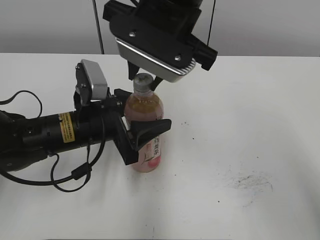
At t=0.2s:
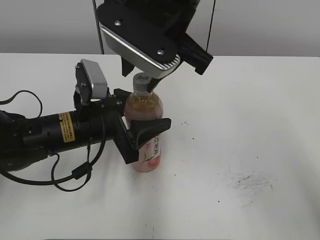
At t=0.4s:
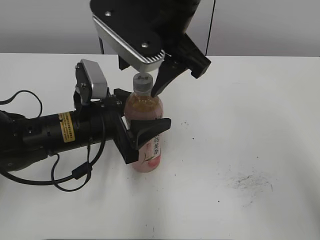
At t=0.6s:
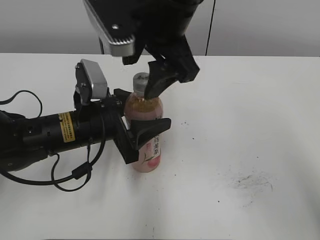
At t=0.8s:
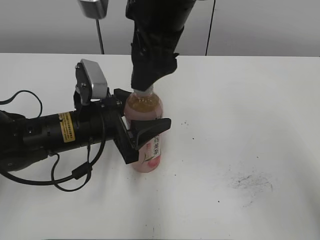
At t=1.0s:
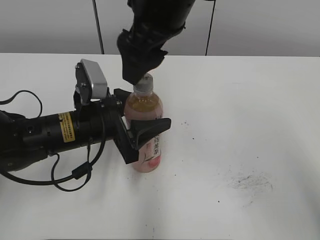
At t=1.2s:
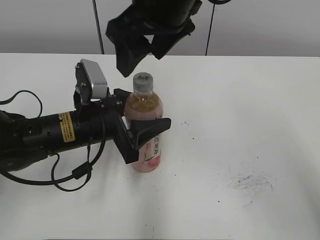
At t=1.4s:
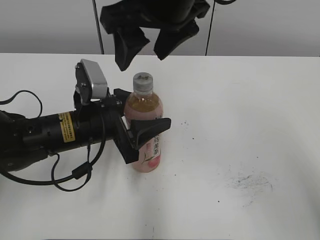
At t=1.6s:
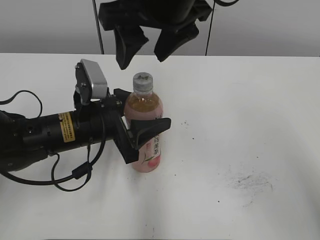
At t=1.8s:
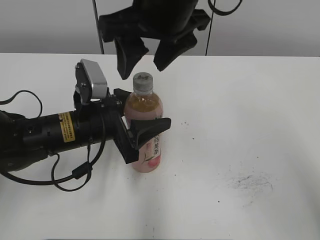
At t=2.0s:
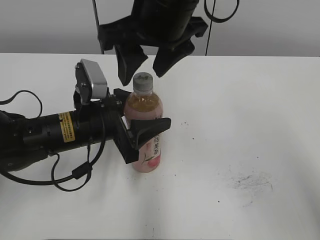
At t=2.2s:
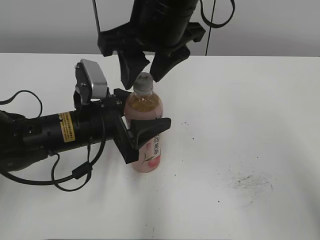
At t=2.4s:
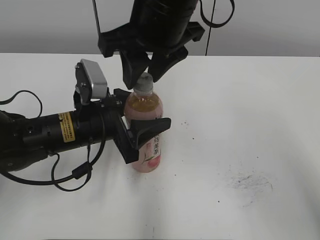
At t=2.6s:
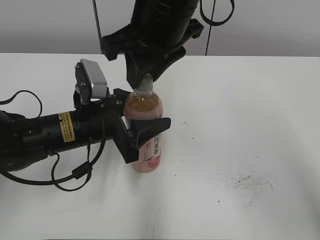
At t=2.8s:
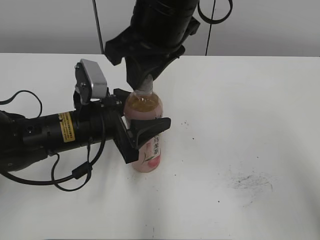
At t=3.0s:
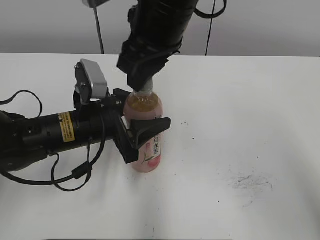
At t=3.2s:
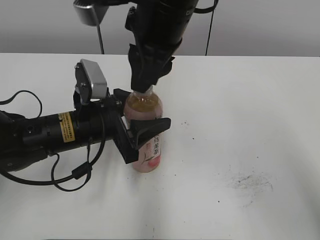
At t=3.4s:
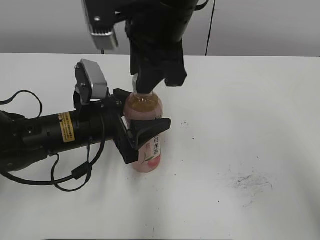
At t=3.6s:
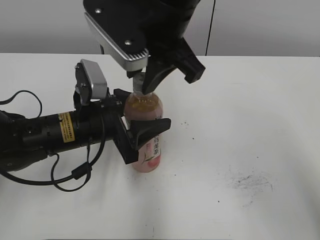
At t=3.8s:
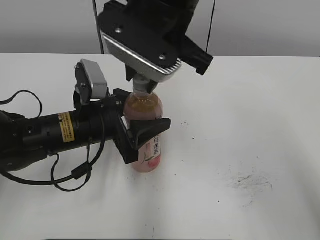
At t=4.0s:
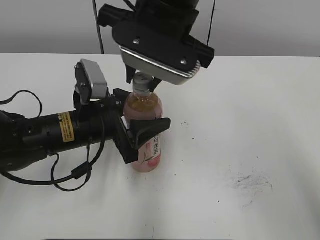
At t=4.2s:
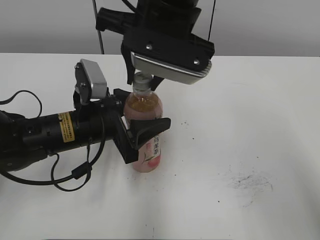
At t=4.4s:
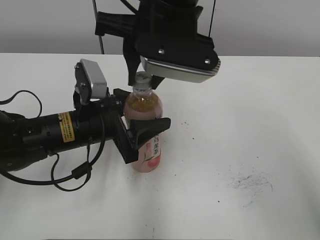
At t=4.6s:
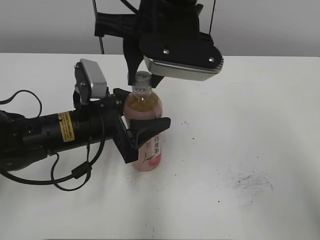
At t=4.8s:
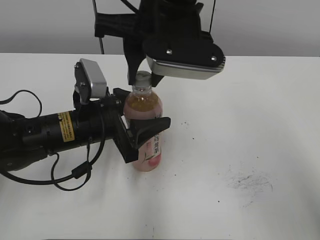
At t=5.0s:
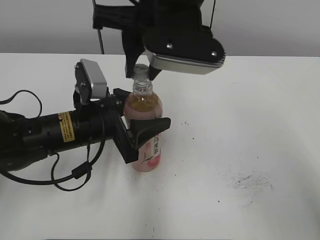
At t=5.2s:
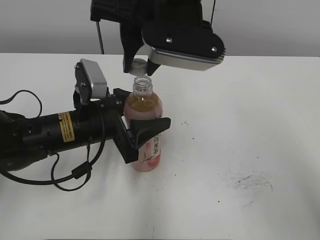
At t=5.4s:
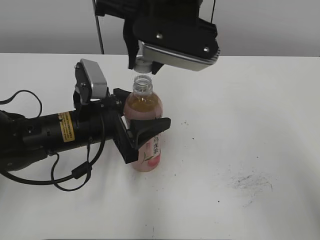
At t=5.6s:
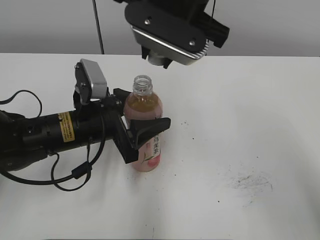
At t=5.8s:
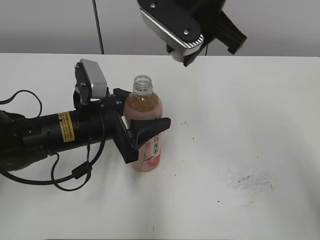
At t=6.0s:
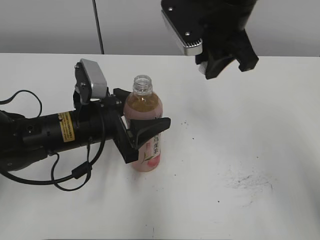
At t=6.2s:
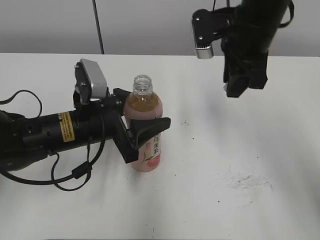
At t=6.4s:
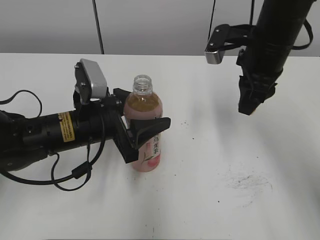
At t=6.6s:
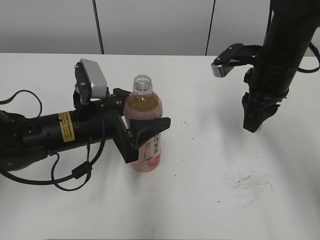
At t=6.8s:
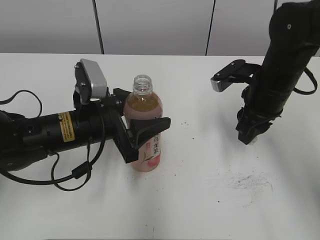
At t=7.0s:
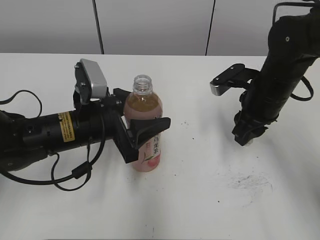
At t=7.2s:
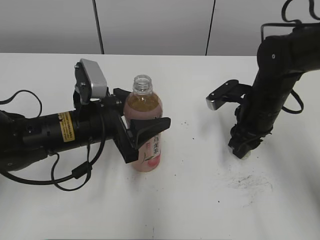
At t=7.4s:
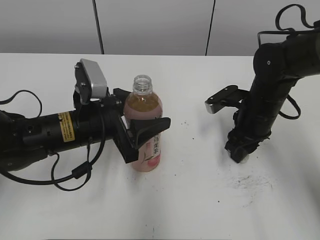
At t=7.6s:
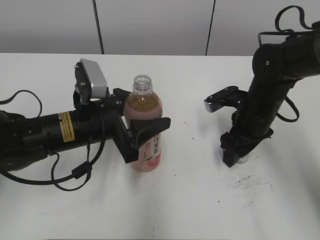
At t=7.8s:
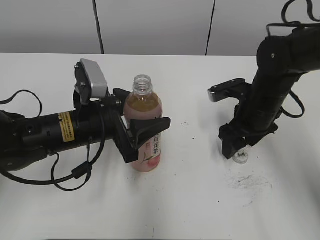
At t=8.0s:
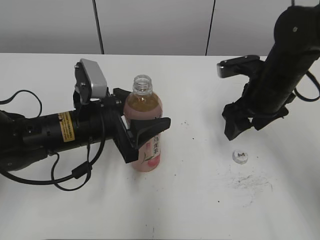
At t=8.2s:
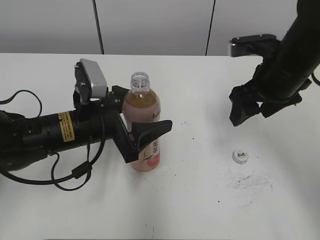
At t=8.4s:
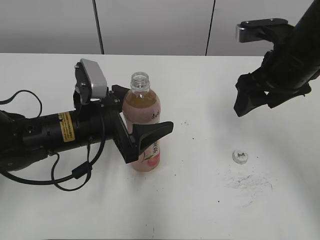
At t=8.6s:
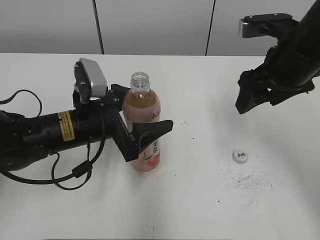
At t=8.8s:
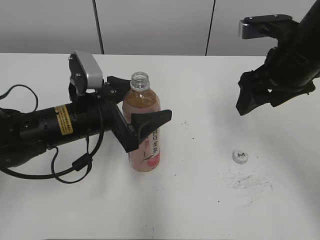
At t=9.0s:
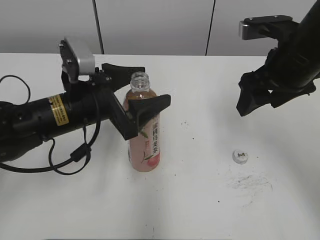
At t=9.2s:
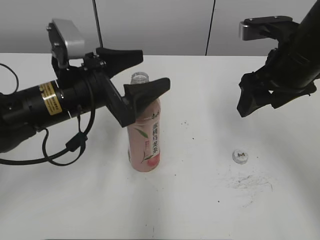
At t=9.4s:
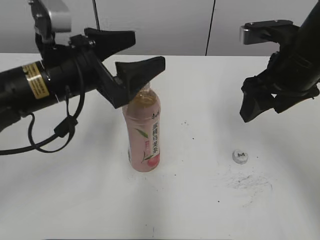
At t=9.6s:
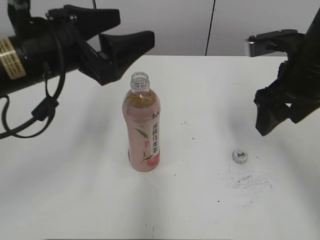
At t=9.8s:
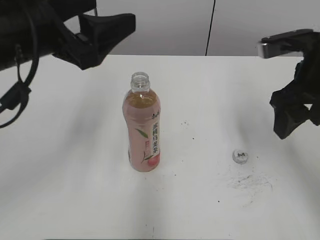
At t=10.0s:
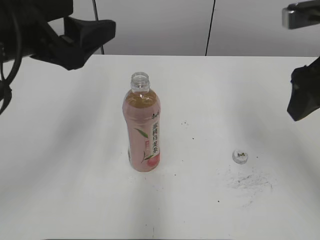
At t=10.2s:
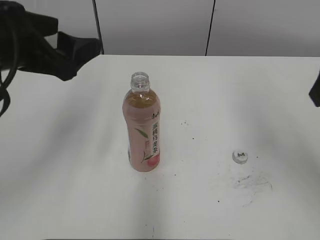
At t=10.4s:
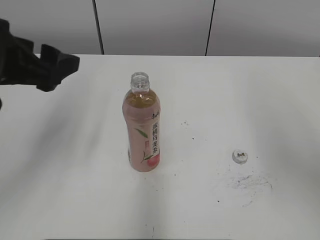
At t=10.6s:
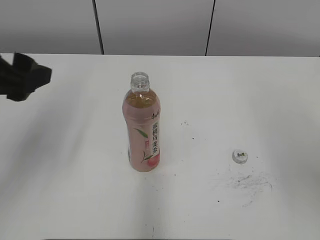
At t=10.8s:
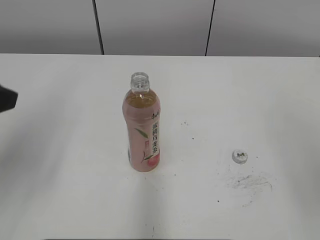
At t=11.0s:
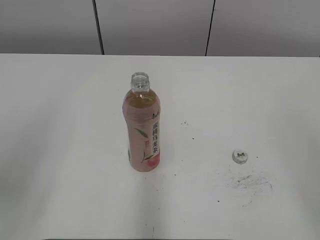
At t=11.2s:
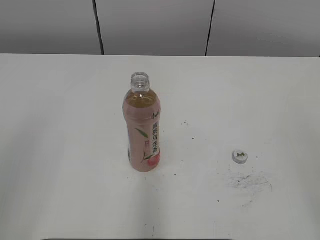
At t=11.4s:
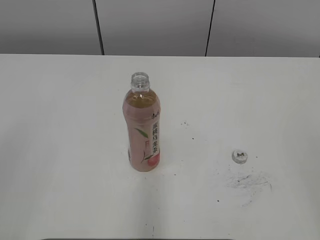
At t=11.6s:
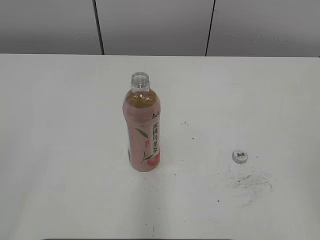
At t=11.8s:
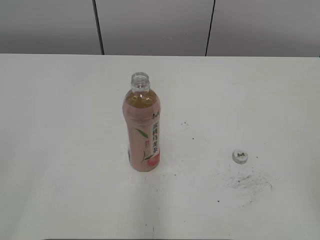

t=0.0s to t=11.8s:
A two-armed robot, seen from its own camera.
Step, t=5.2s to t=7.4s: Place the bottle cap on the right.
t=0.0s to t=1.4s: The right gripper opens.
t=1.4s to t=3.0s: The right gripper closes up.
t=4.4s to t=6.0s: The right gripper goes about 10 cm to the right.
t=6.0s to t=7.4s: The right gripper travels downward and to the right by roughly 20 cm.
t=7.4s to t=8.8s: The left gripper opens, while the right gripper is displaced upward by some 15 cm, and opens.
t=8.8s to t=10.4s: The left gripper heads upward and to the left, covering approximately 15 cm. Meanwhile the right gripper shifts roughly 15 cm backward, upward and to the right.
t=10.4s to t=11.8s: The left gripper is displaced backward and to the left by about 25 cm.

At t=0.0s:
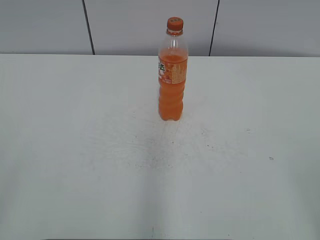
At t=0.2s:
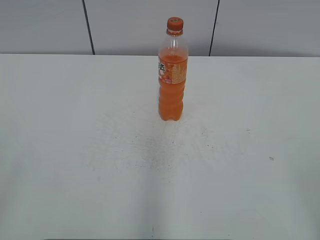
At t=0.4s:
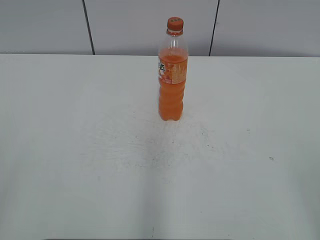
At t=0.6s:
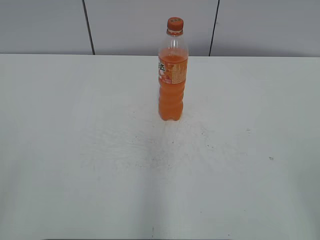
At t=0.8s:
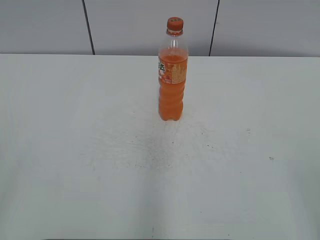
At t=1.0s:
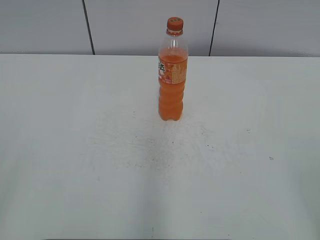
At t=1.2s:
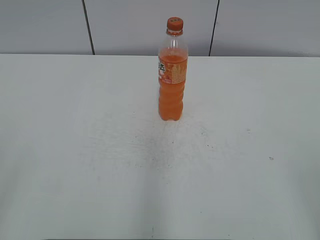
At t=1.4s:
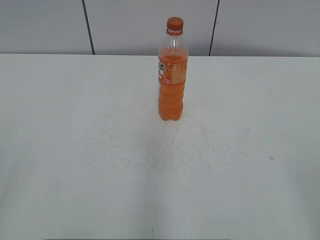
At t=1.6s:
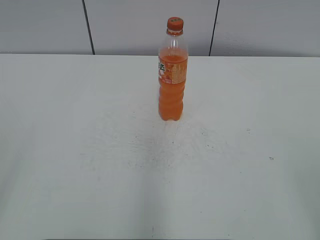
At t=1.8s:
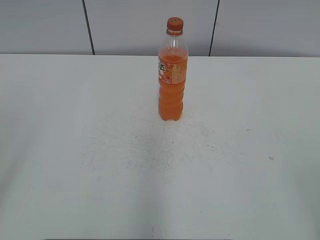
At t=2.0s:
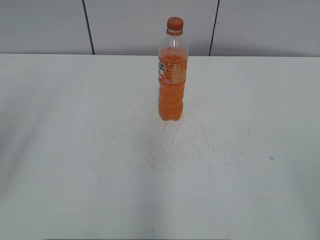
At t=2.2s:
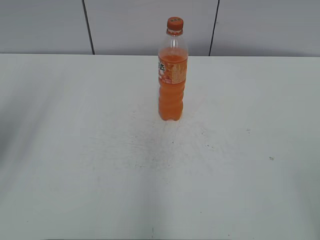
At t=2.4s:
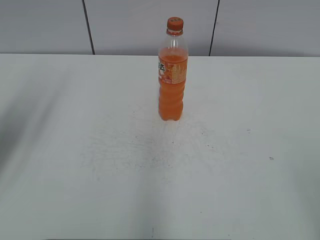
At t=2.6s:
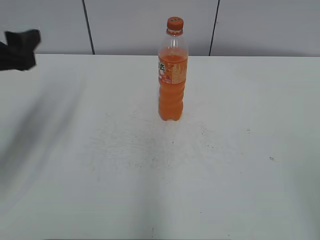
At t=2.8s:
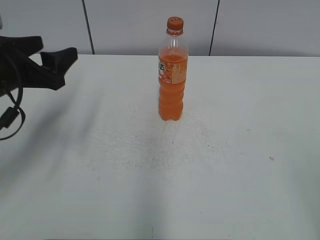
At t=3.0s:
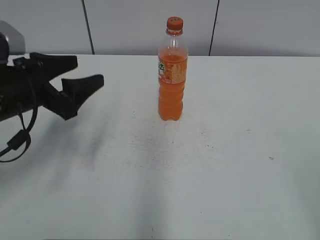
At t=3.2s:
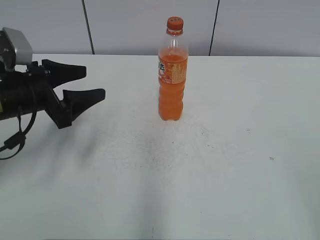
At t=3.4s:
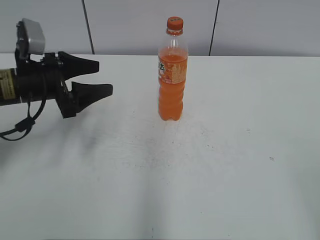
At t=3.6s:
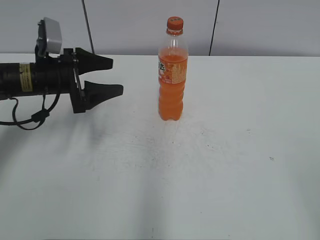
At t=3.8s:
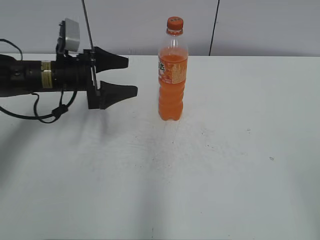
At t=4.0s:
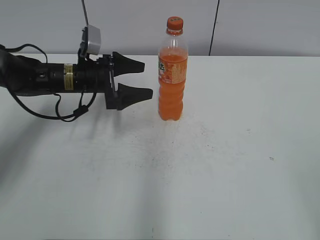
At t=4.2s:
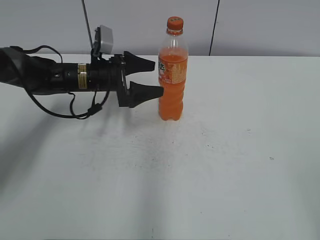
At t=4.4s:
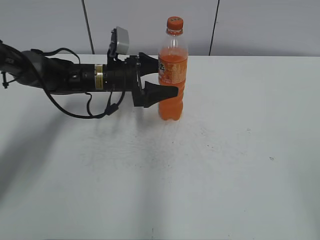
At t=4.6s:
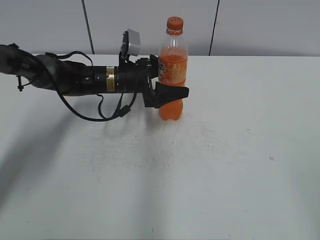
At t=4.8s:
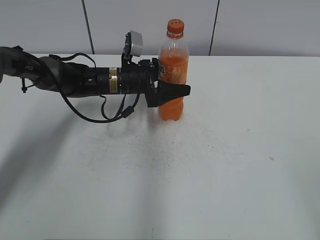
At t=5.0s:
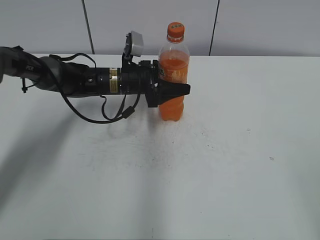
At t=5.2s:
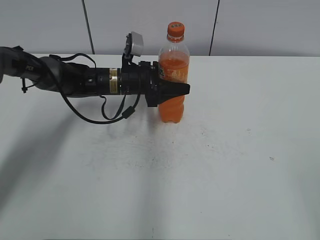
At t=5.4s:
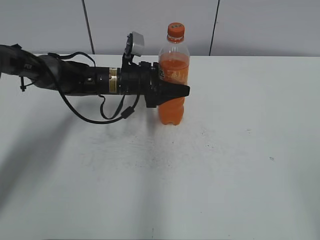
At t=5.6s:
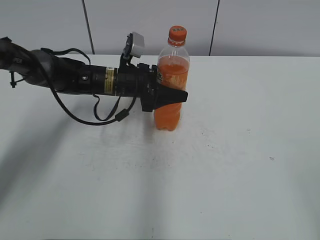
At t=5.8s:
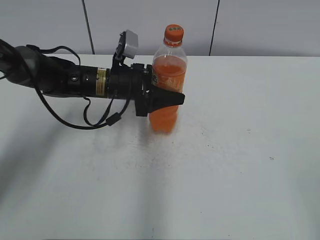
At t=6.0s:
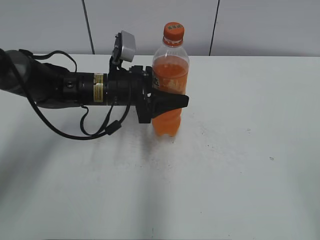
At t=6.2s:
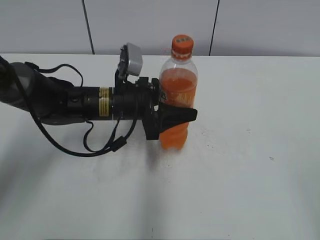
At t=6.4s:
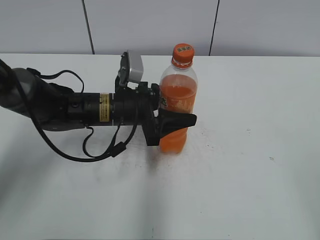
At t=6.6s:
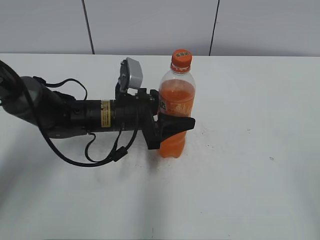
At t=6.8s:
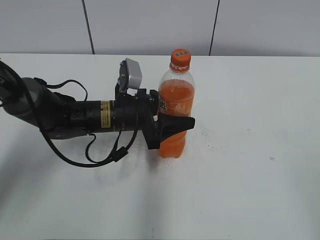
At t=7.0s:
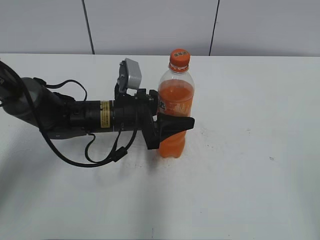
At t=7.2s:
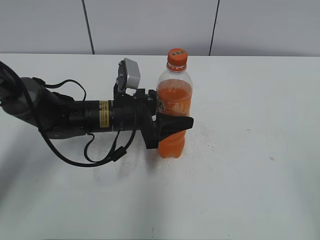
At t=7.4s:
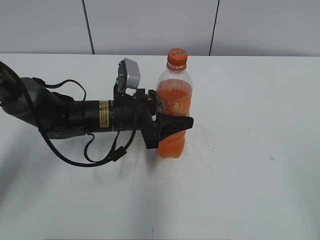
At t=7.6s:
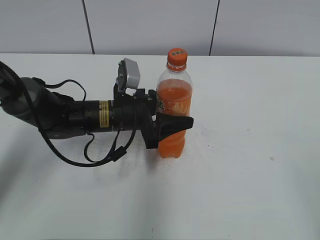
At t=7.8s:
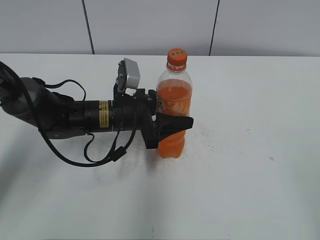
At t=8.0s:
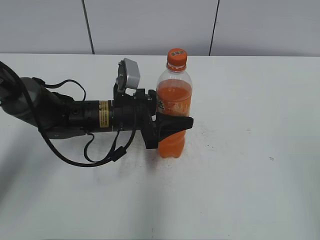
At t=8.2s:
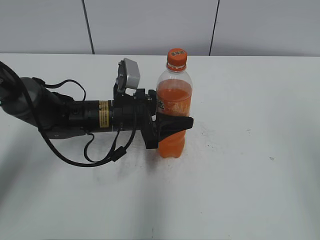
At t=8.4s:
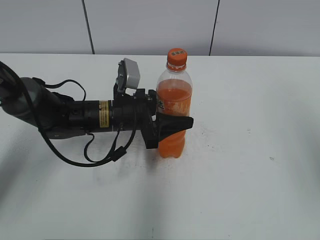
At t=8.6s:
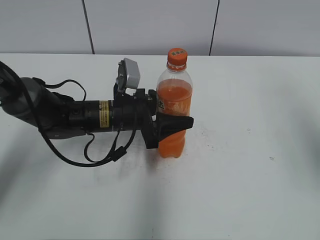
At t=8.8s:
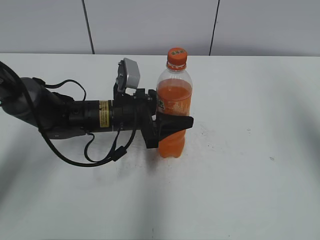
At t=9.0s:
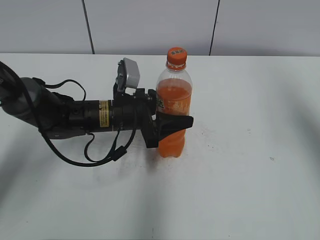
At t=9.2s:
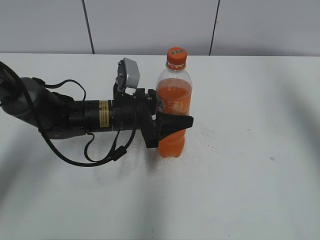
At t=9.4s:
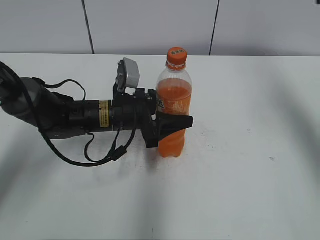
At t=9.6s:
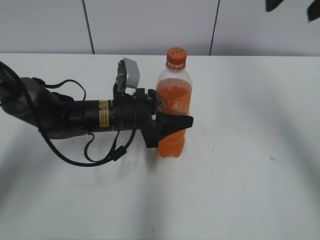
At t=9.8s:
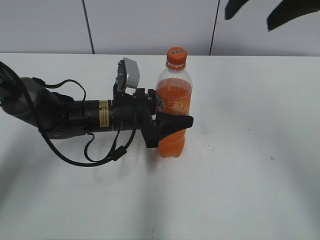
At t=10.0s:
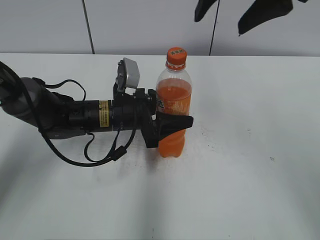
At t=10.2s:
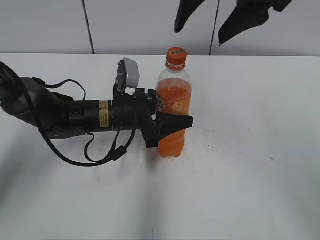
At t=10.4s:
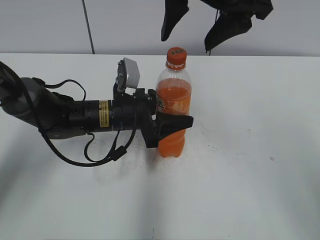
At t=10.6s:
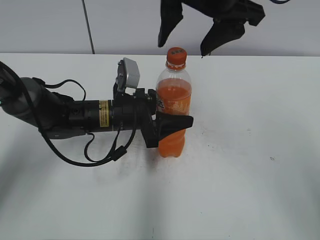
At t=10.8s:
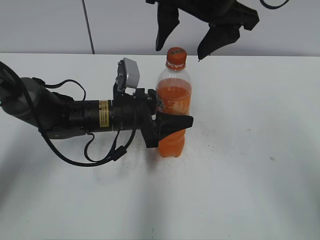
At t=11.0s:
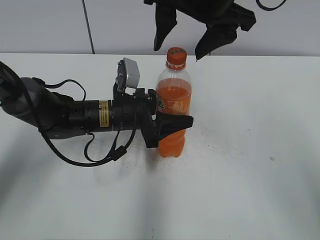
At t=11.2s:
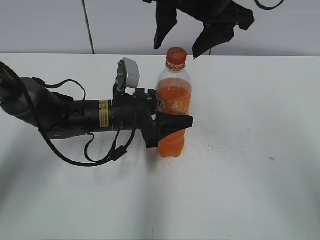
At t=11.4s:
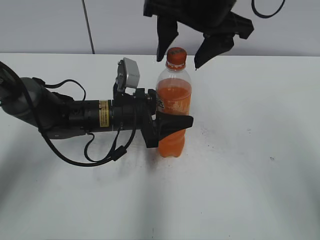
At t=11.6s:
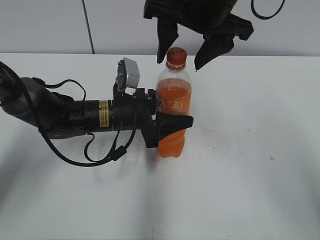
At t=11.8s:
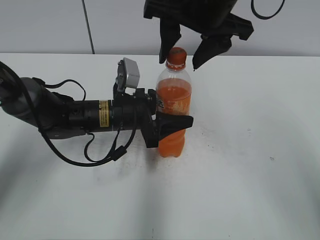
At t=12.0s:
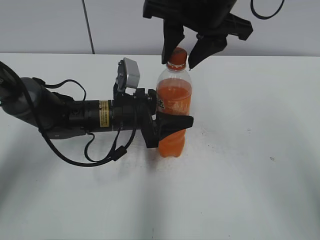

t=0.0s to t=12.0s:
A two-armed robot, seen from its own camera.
Step, t=0.0s to t=4.8s: Grab the Mirinda with the left hand.
t=1.6s to t=3.0s: The left gripper goes about 30 cm forward and downward.
t=3.0s to t=4.4s: The left gripper moves forward, to the right and downward, roughly 20 cm, and opens its fingers.
t=4.4s to t=6.0s: The left gripper goes about 5 cm backward, and closes up.
t=6.0s to t=7.6s: The left gripper ends up some 5 cm from where it was.
t=7.6s to t=9.0s: The right gripper is displaced forward and upward by some 30 cm.
t=9.0s to t=10.4s: The right gripper shifts roughly 20 cm to the left.
t=10.4s to t=12.0s: The right gripper closes.
